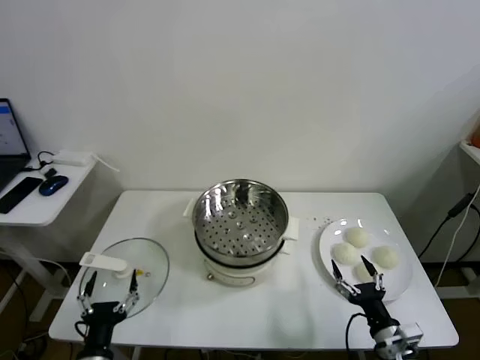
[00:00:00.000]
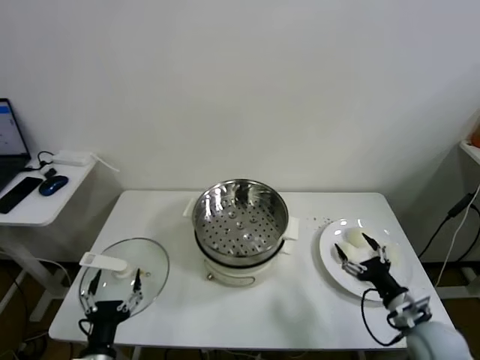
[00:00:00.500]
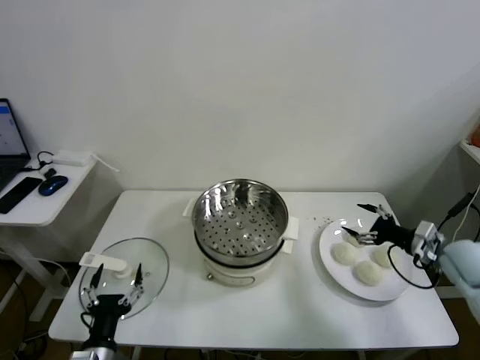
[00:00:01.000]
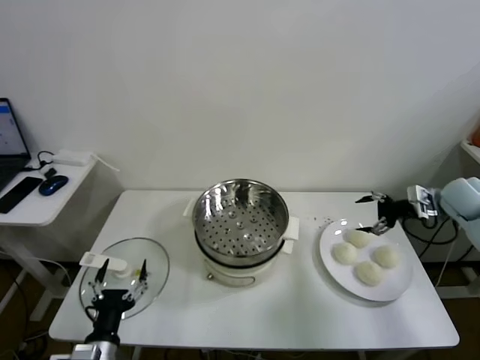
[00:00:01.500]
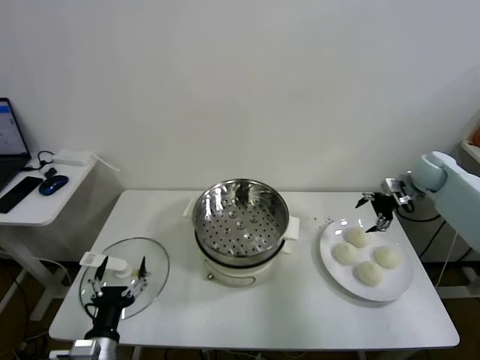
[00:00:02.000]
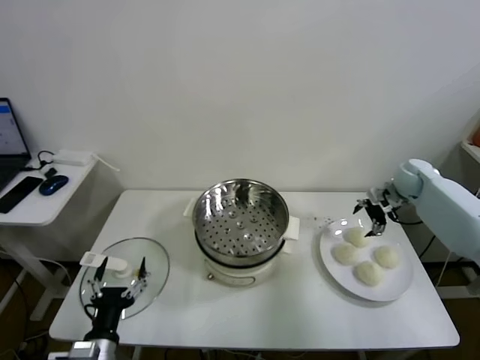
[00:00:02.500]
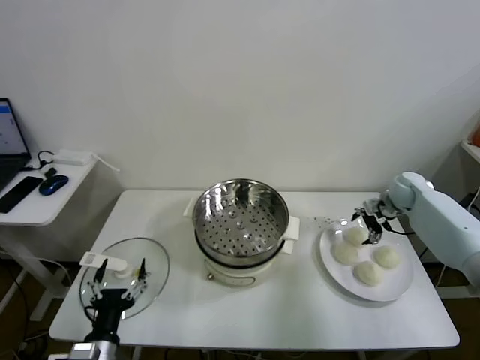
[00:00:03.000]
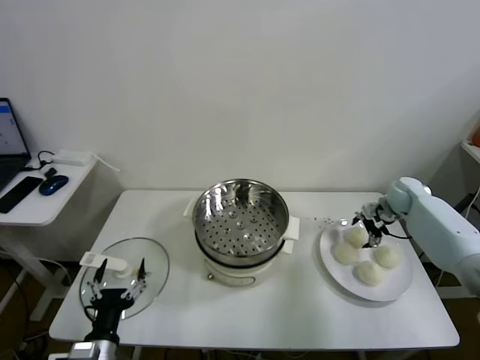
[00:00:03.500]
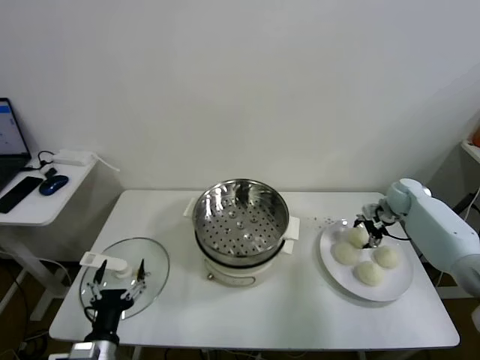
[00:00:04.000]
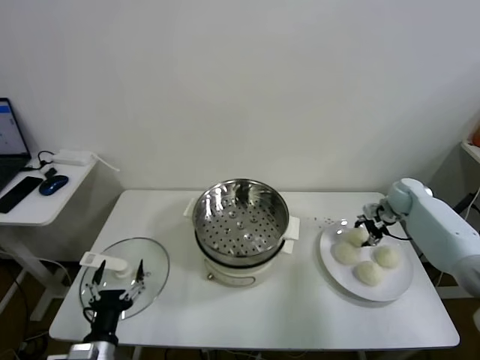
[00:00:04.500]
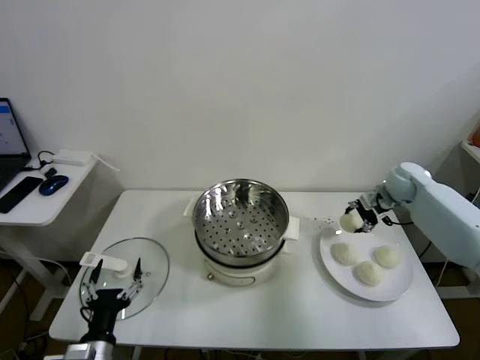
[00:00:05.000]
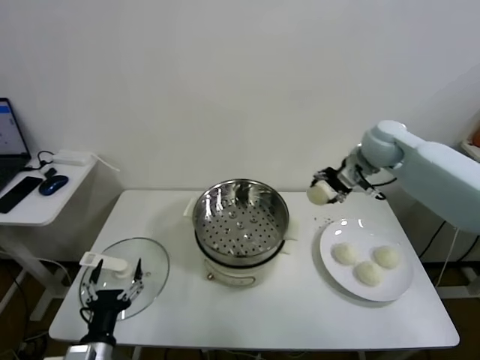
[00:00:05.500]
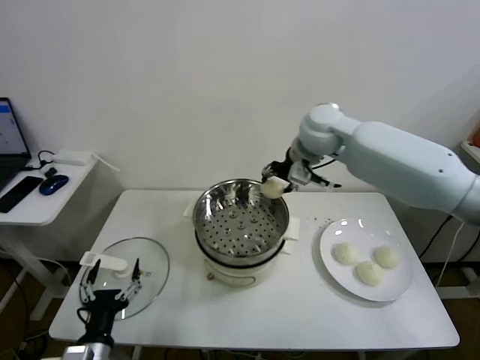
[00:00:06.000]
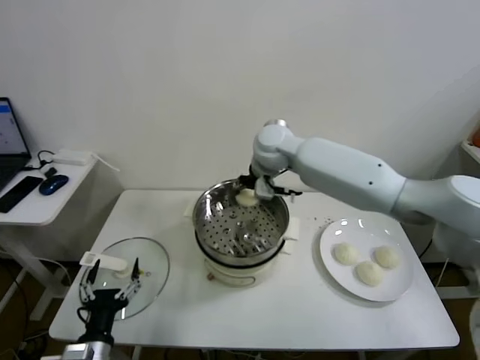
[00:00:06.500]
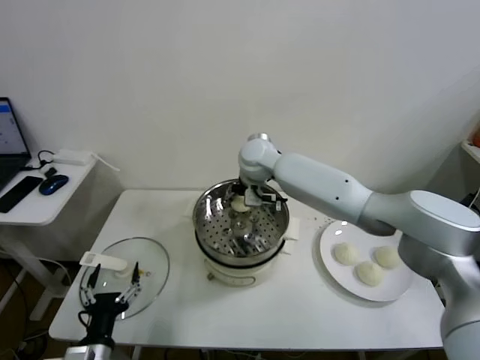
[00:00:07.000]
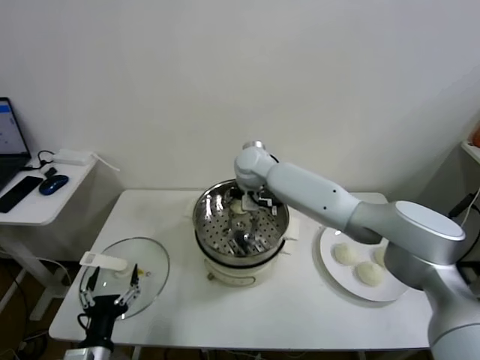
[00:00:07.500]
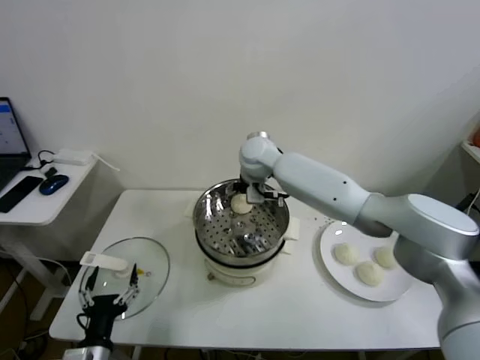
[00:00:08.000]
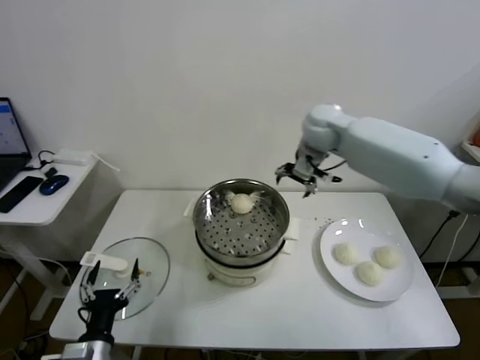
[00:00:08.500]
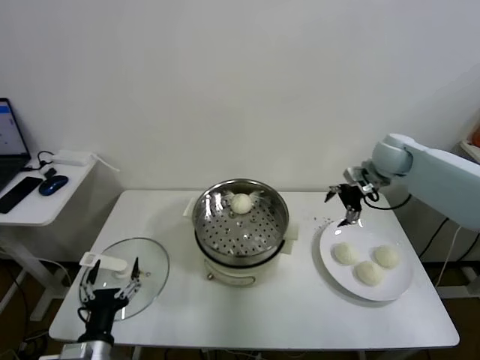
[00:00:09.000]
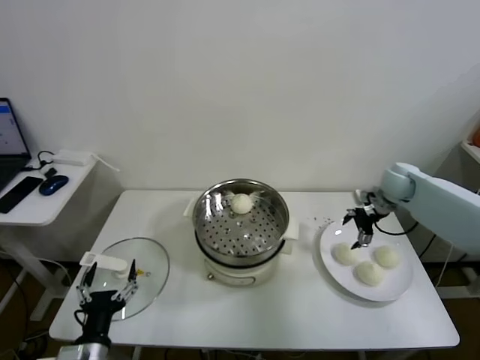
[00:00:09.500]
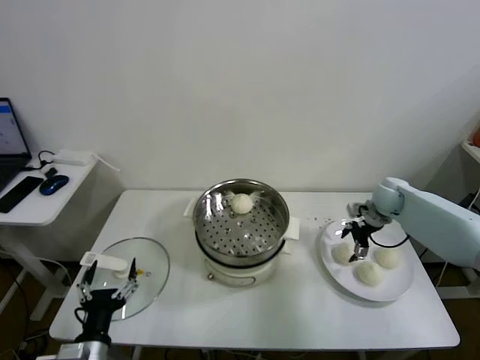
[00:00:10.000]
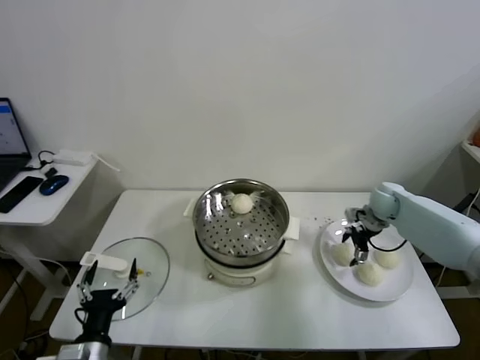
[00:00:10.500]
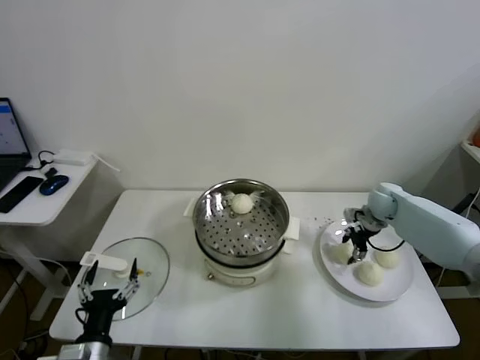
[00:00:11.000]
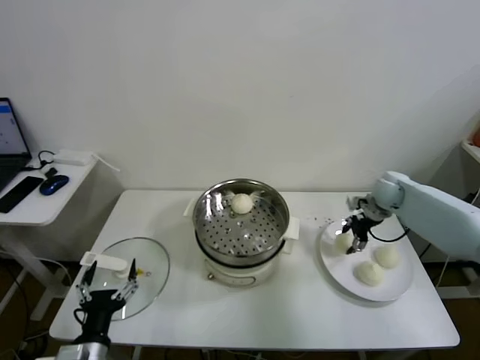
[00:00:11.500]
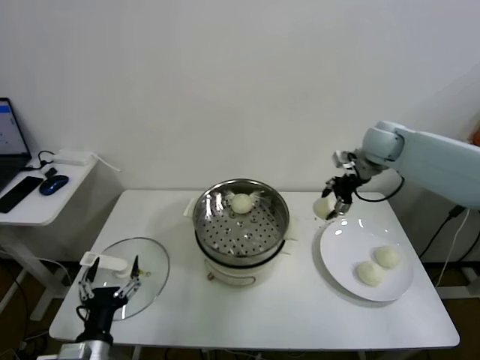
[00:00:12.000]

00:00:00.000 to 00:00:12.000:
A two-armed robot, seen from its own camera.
Task of the whole recording: take steamed baozi put them in steamer.
Step, 00:00:00.000 to 00:00:04.000: Grasp the baozi in the plate with right gripper.
Step, 00:00:05.000 to 00:00:07.500: Place the baozi on the steamer with right gripper.
Step, 00:00:08.500 to 00:00:11.000: Grasp the baozi in the plate with right gripper.
00:00:02.000 to 00:00:04.000: The right gripper heads downward, covering roughly 10 cm, and closes.
00:00:04.000 to 00:00:06.000: The right gripper travels to the left and upward by some 40 cm.
00:00:06.000 to 00:00:08.000: The right gripper shifts roughly 10 cm to the left and downward, and opens up.
00:00:08.000 to 00:00:10.000: The right gripper travels to the right and downward by approximately 40 cm.
00:00:10.000 to 00:00:12.000: The right gripper heads upward and to the left, covering about 20 cm, and closes up.

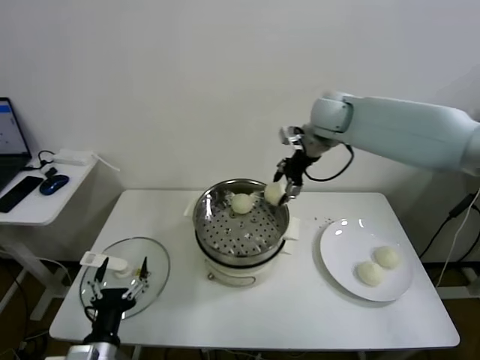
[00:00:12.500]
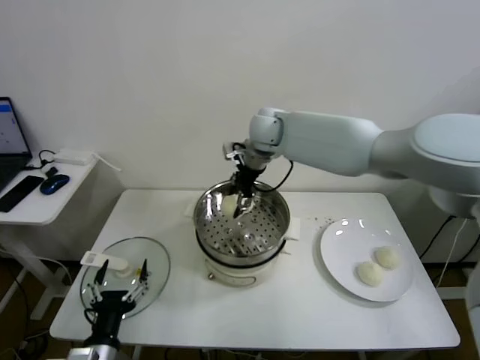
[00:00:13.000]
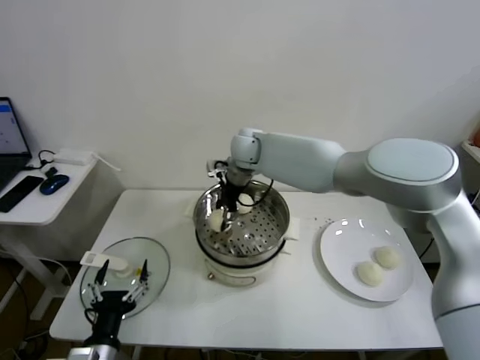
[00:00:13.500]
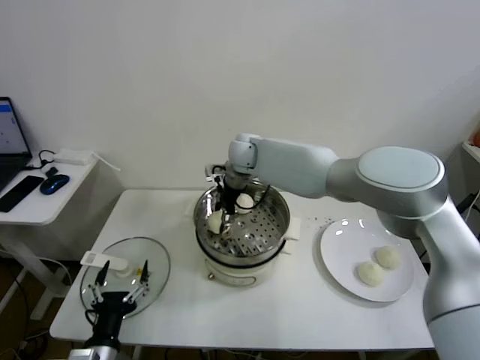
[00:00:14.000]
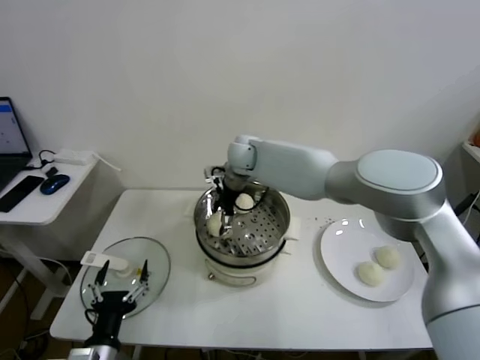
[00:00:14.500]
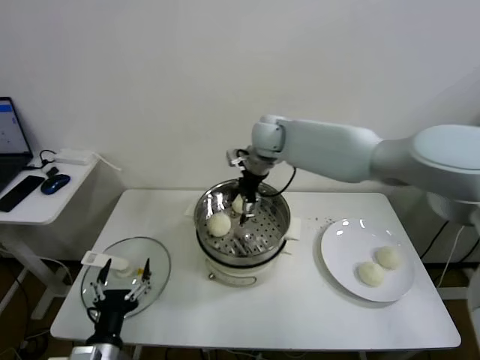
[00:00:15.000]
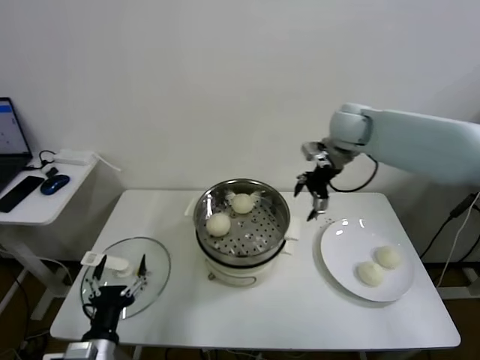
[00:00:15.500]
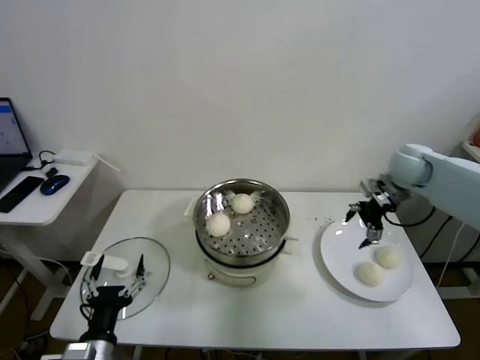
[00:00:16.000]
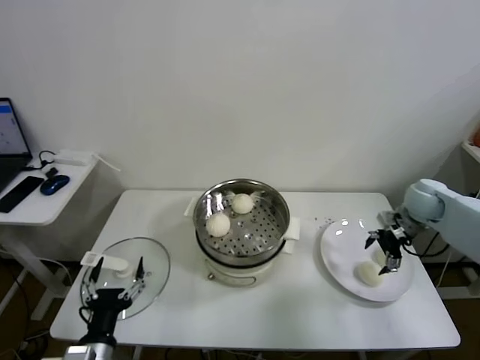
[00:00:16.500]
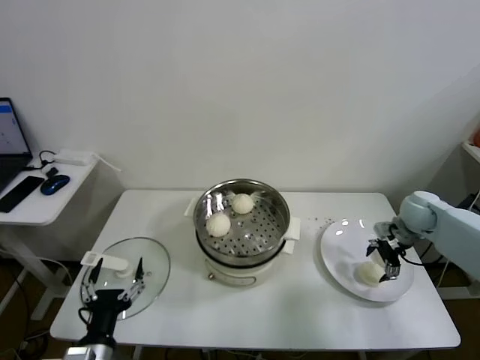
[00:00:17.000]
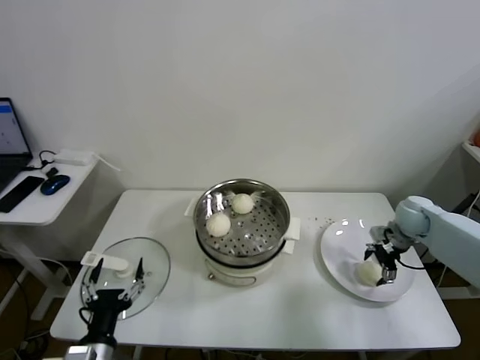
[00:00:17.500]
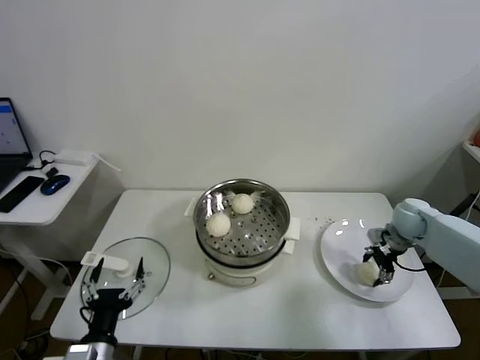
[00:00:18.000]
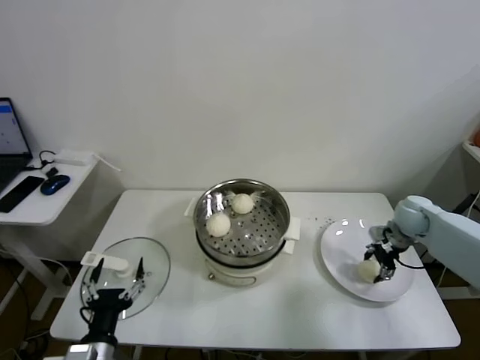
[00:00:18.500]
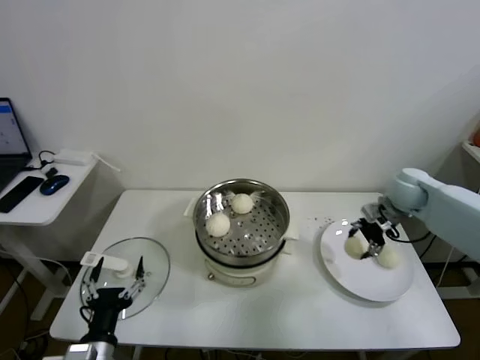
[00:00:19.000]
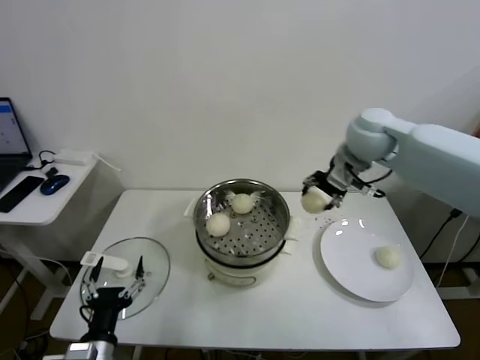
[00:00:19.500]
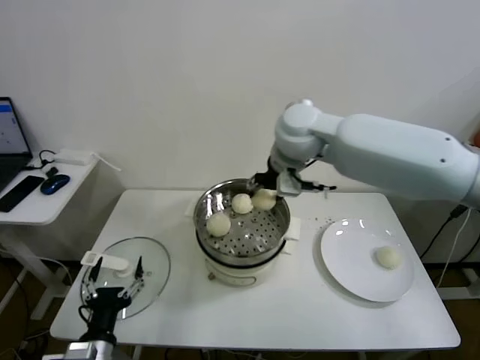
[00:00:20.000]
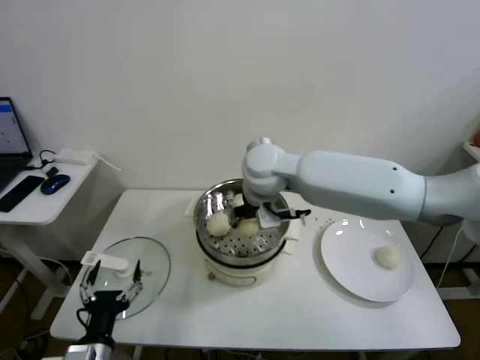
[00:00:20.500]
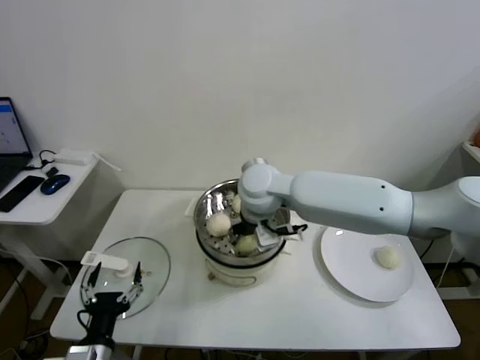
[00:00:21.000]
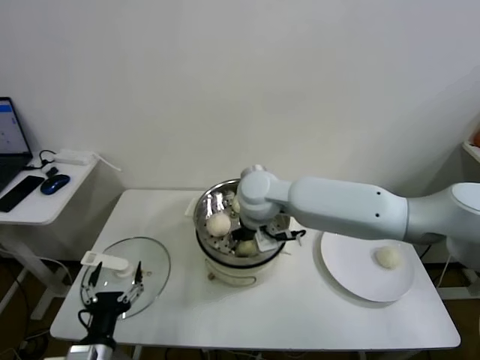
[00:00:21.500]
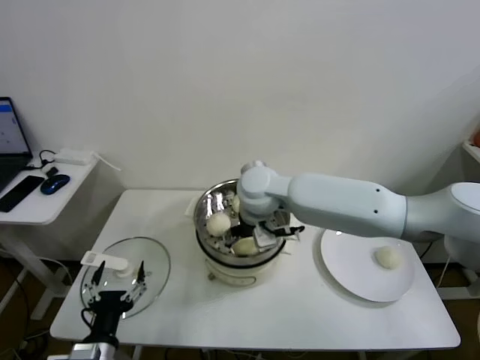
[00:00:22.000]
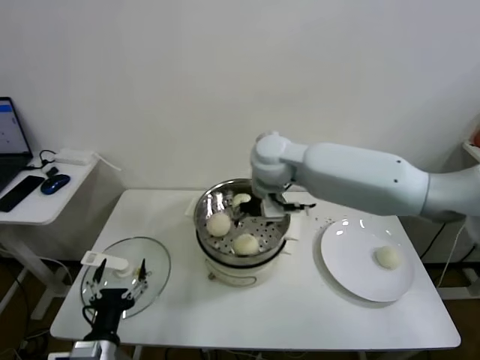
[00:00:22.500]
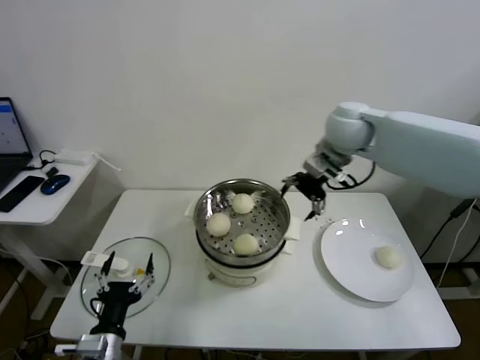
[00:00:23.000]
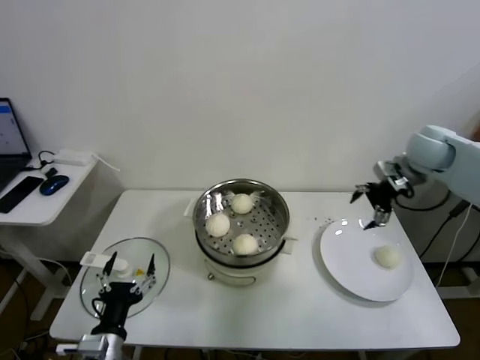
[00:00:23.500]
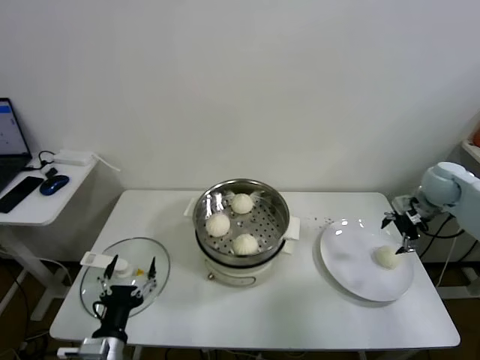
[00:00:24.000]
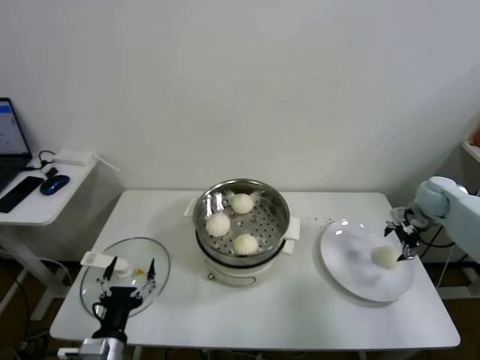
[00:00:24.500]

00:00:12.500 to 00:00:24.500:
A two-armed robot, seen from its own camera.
Task of the whole recording: take steamed baozi put them in steamer.
Step, 00:00:12.500 to 00:00:14.500: Place the baozi on the steamer with right gripper.
Step, 00:00:15.000 to 00:00:18.000: Grasp the baozi in the plate with right gripper.
Step, 00:00:18.500 to 00:00:22.000: Place the baozi on the steamer with right gripper.
00:00:12.500 to 00:00:14.500: The right gripper travels to the left and downward by about 20 cm, and opens its fingers.
00:00:14.500 to 00:00:16.500: The right gripper moves to the right, some 40 cm.
00:00:16.500 to 00:00:18.500: The right gripper heads downward, covering roughly 5 cm, and closes its fingers.
00:00:18.500 to 00:00:20.500: The right gripper moves to the left and upward, some 40 cm.
00:00:20.500 to 00:00:22.500: The right gripper opens its fingers.
00:00:22.500 to 00:00:24.500: The right gripper is displaced to the right by roughly 40 cm.

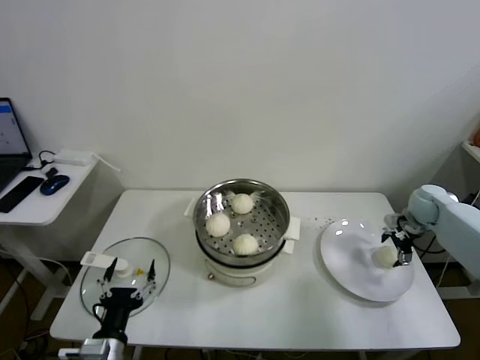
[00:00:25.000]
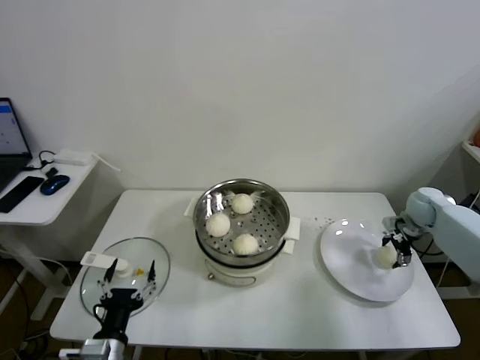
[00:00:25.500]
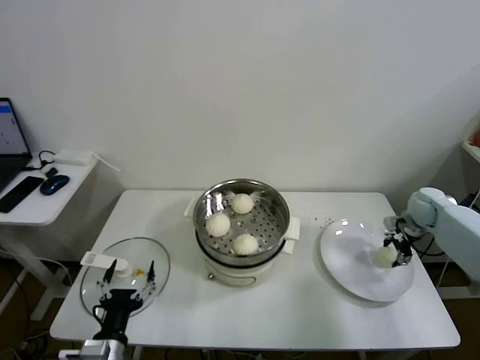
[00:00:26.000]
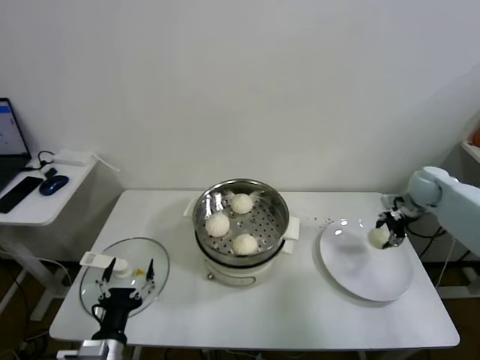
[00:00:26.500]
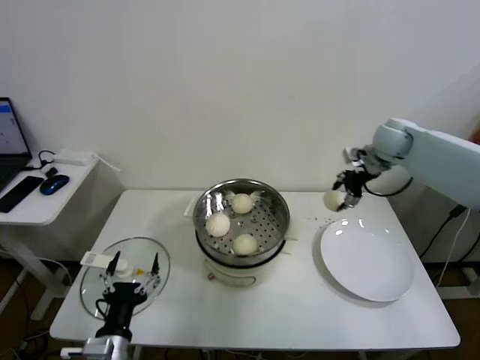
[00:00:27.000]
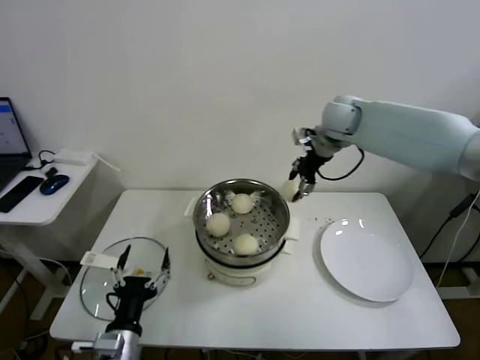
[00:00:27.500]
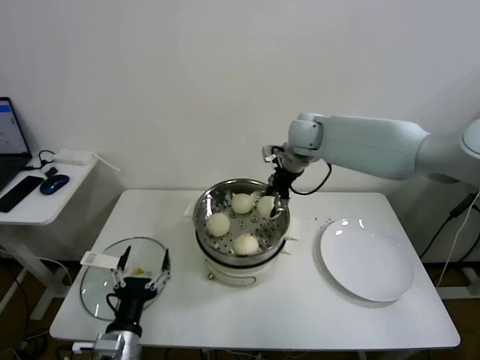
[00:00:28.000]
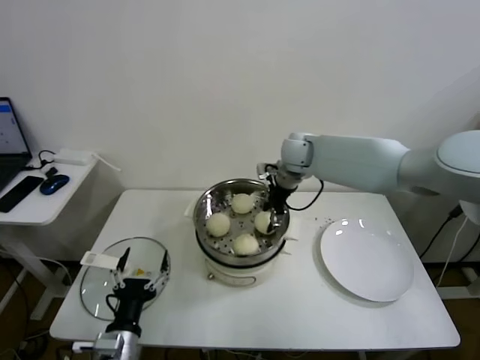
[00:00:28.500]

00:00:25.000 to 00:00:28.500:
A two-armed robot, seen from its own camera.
Task of the whole recording: take steamed baozi put them in steamer.
00:00:25.000 to 00:00:27.000: The right gripper moves upward and to the left, some 20 cm, and closes.
00:00:27.000 to 00:00:28.500: The right gripper heads to the left, covering some 20 cm.
